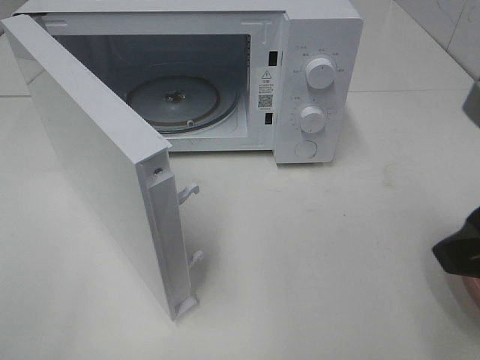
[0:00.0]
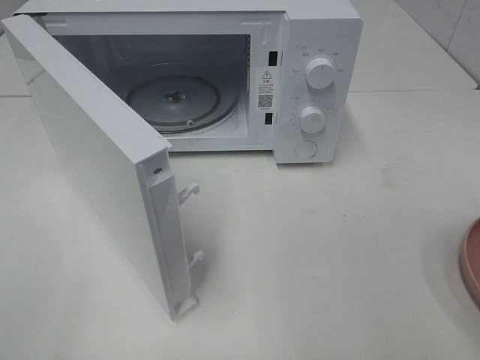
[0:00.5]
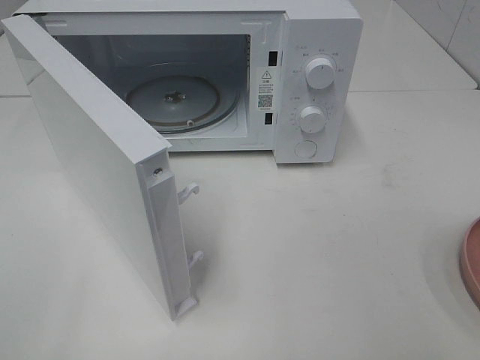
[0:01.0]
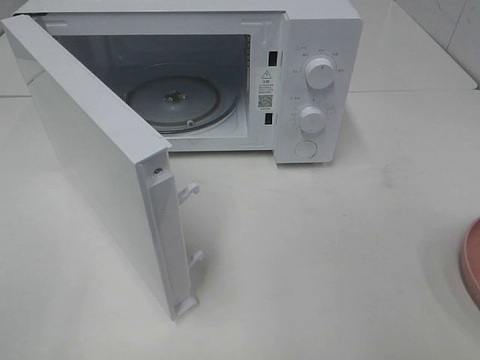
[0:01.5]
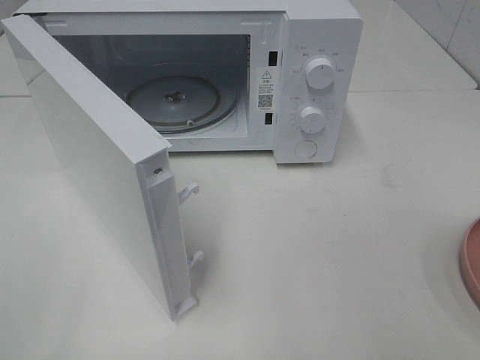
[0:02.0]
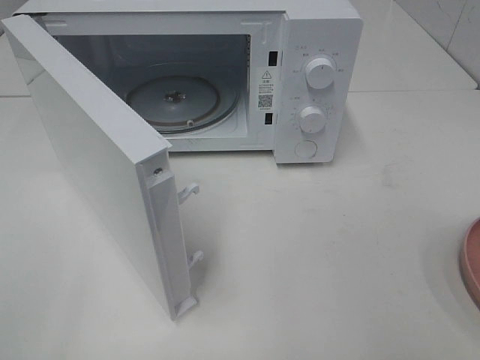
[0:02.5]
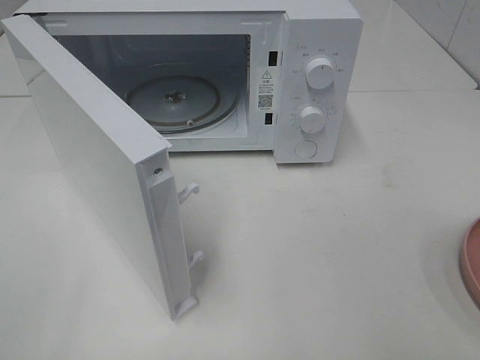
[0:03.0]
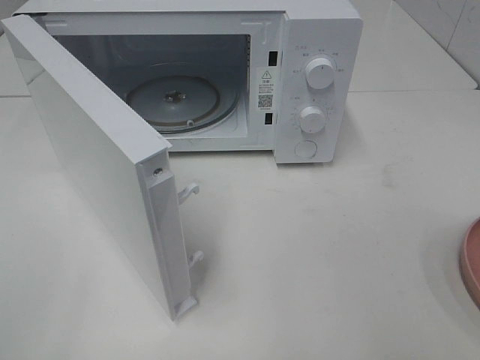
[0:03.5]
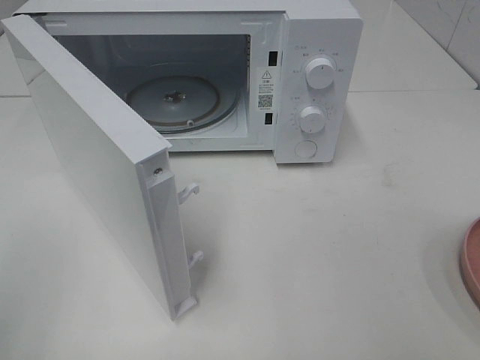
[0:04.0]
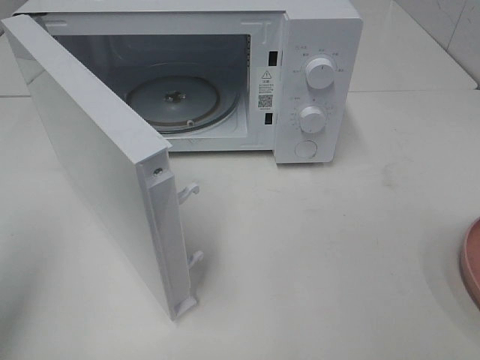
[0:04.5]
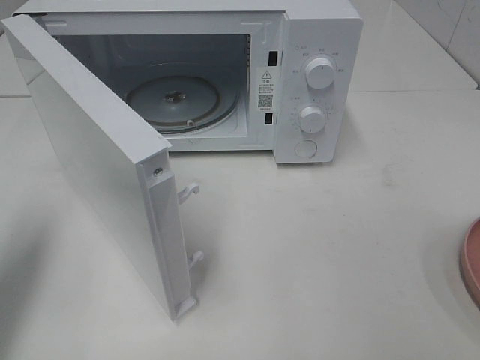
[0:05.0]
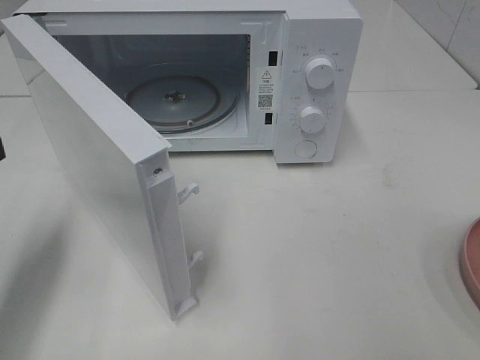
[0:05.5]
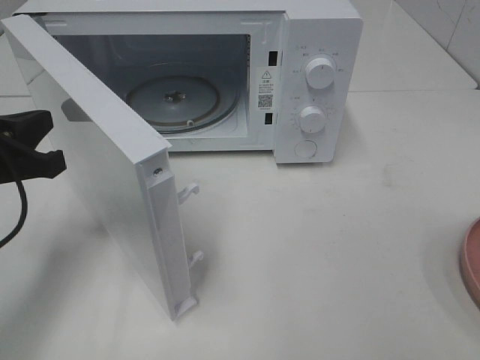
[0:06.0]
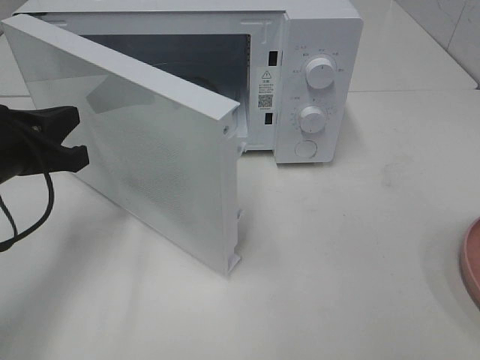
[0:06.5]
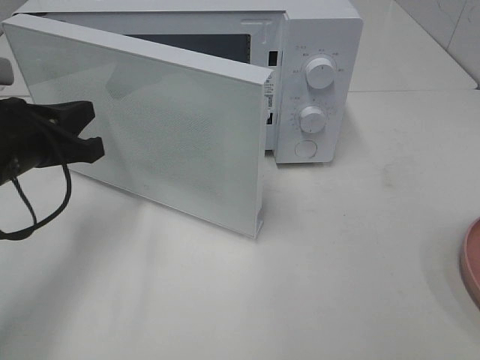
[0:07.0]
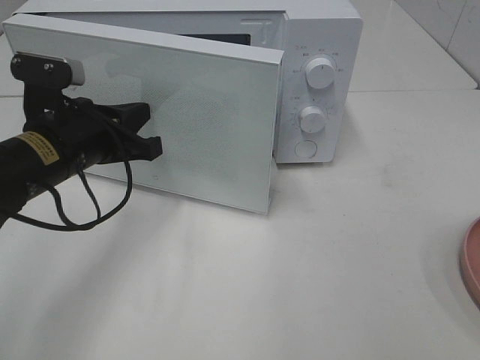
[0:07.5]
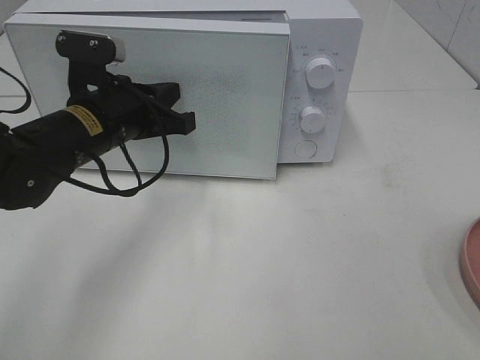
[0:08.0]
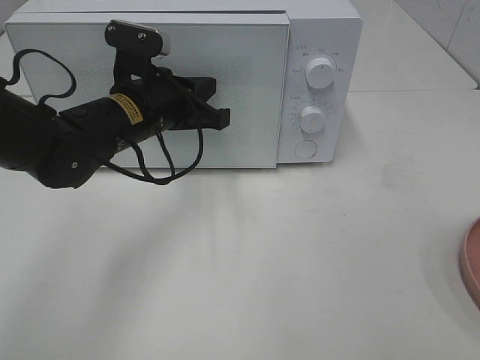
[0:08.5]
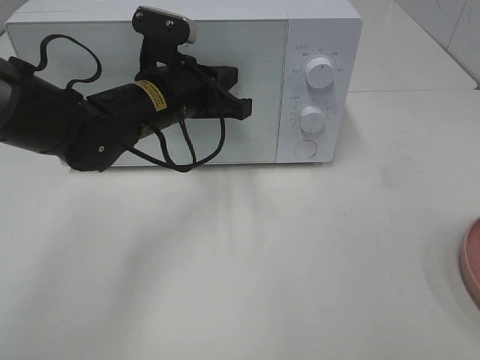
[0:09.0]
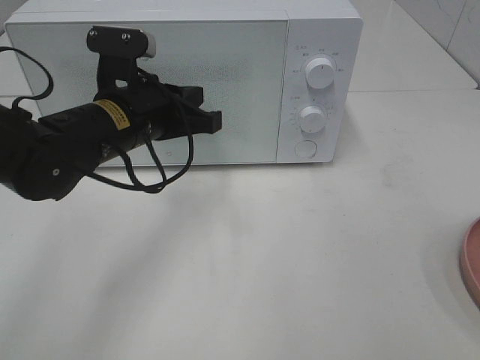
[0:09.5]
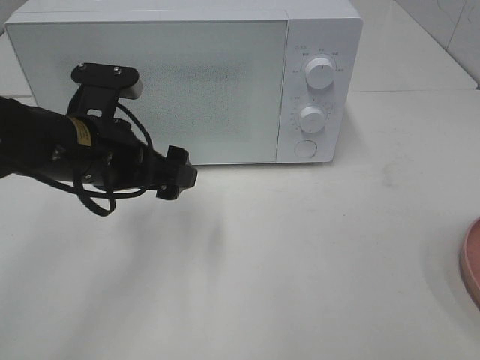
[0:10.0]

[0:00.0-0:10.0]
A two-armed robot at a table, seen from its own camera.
Task of the whole recording: Heat the burger.
Step, 0.0 to 9.0 s: Left hand: close the microwave door.
0.0 to 2.0 s: The right gripper moves backward and to the right, some 15 cm.
4.0 to 6.0 s: The left gripper shifts about 20 cm forward and downward, and closes its fingers.
6.0 to 8.0 s: The left gripper travels to the right and forward by roughly 15 cm.
8.0 to 10.0 s: The left gripper moves backward, approximately 5 cm, and opens up.

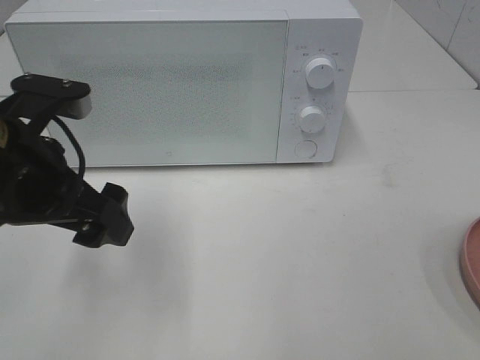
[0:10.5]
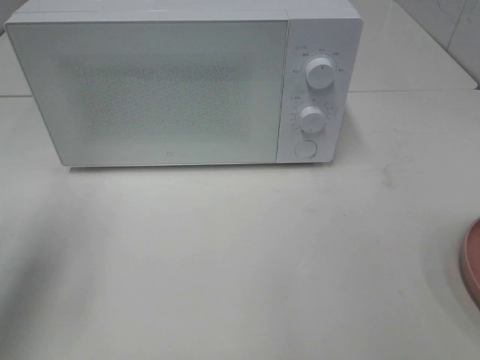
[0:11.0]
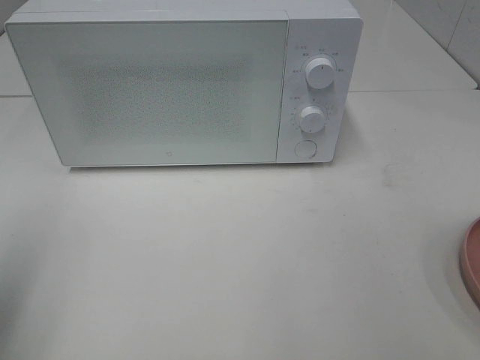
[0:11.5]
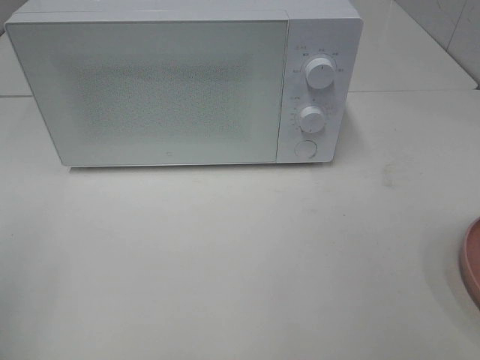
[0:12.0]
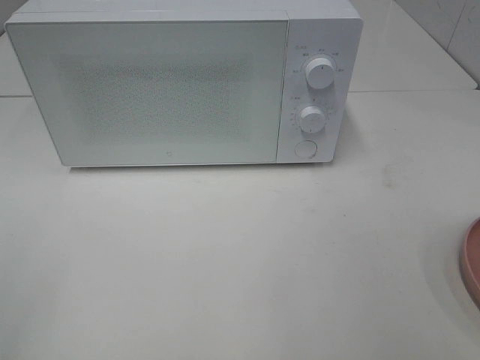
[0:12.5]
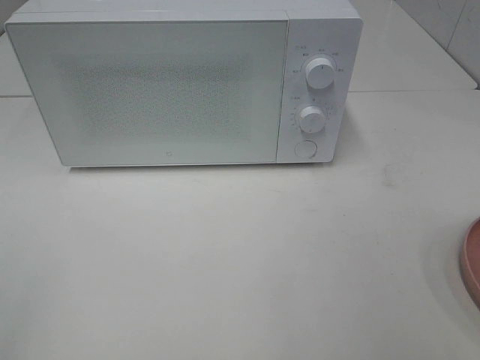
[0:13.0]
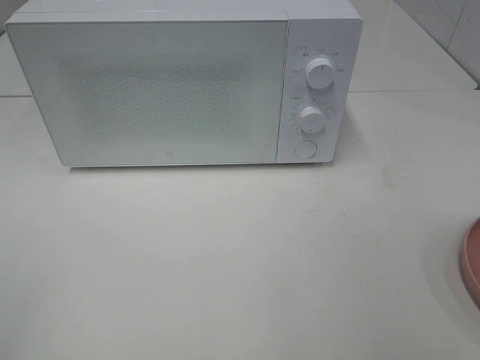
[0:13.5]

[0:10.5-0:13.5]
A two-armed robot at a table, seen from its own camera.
Task of the whole recording: Heat the burger.
10.5 to 12.0 s: The left gripper goes about 20 cm to the left and backward.

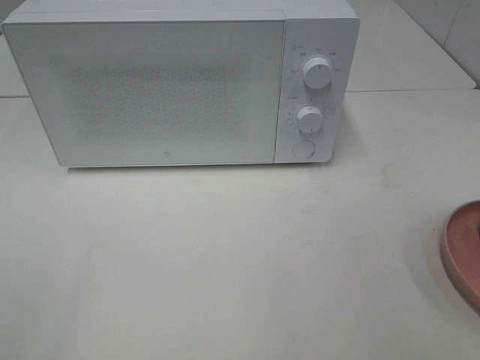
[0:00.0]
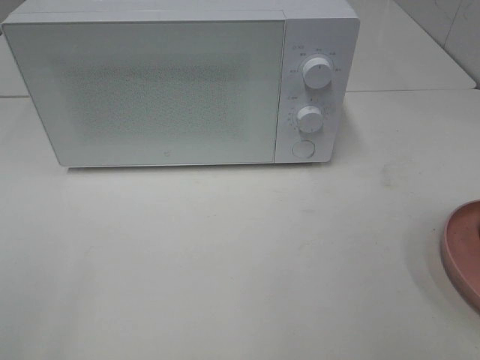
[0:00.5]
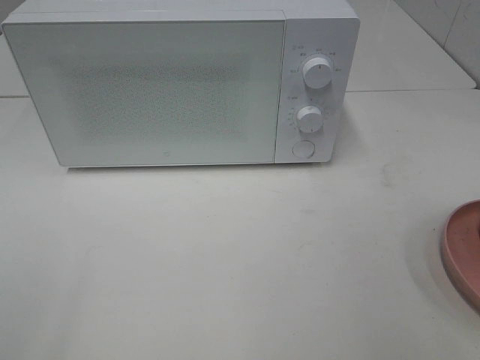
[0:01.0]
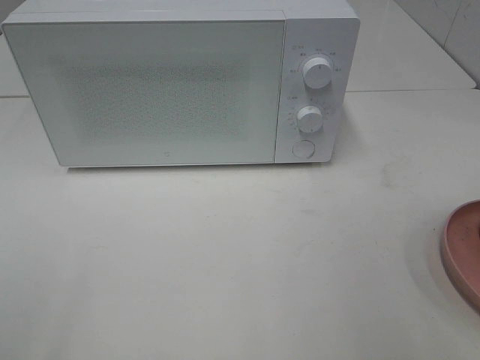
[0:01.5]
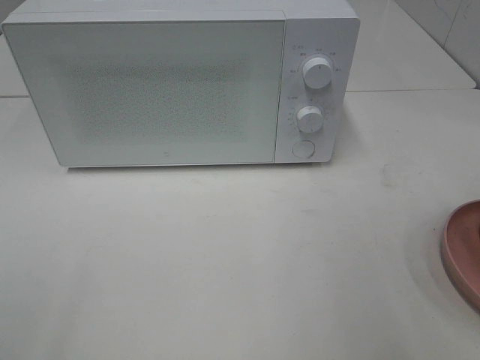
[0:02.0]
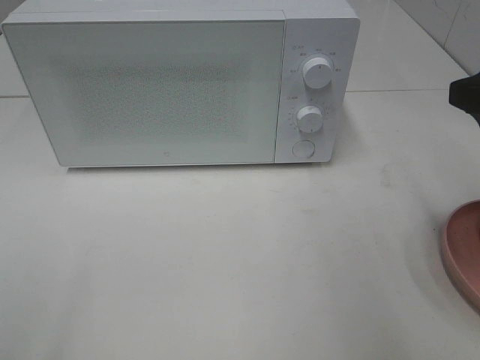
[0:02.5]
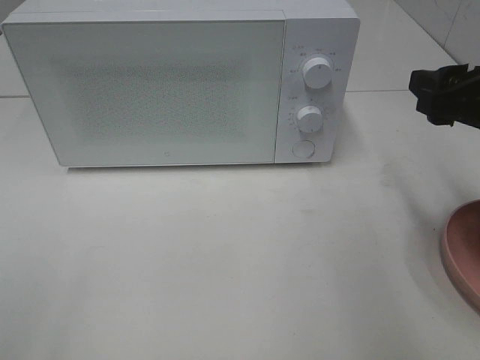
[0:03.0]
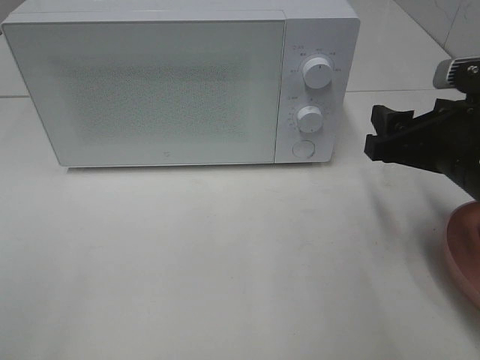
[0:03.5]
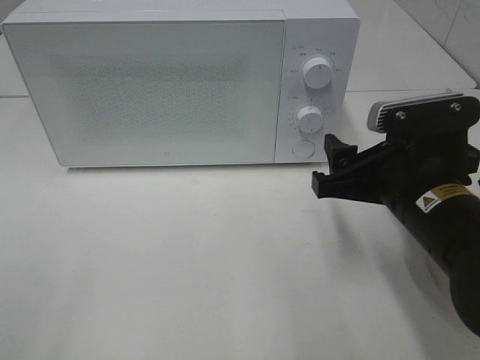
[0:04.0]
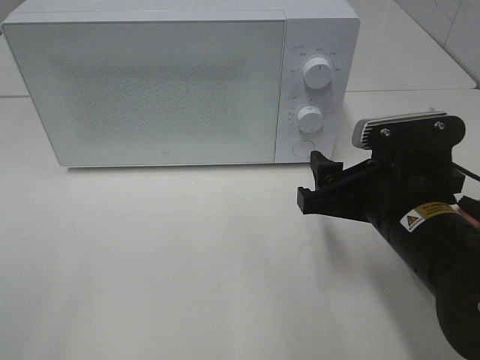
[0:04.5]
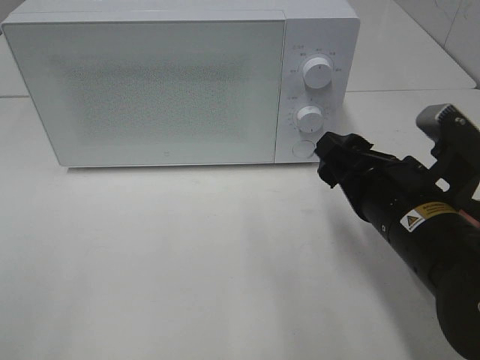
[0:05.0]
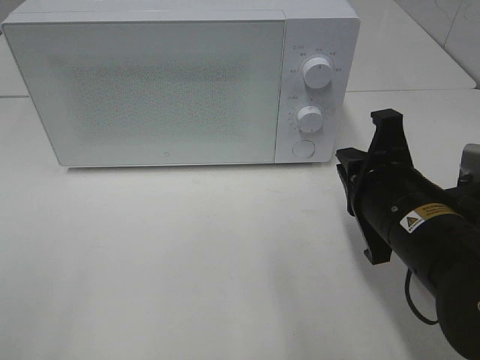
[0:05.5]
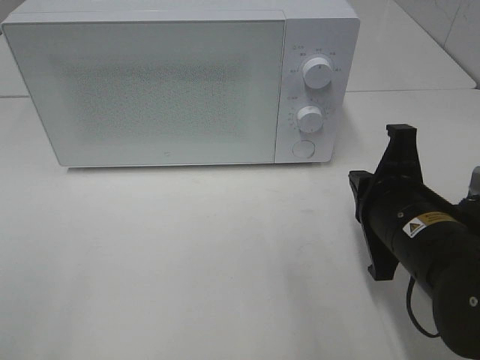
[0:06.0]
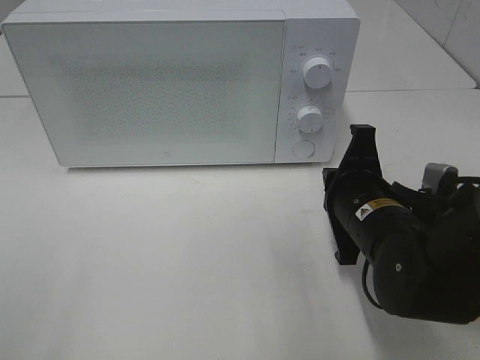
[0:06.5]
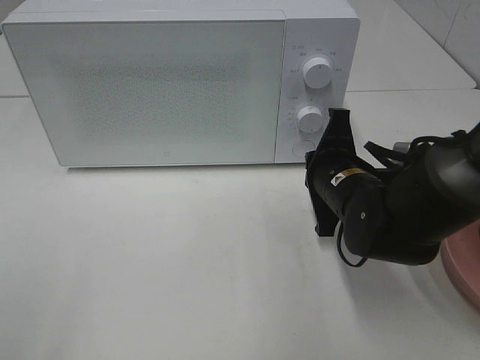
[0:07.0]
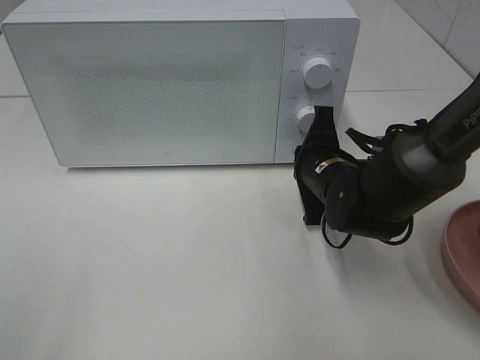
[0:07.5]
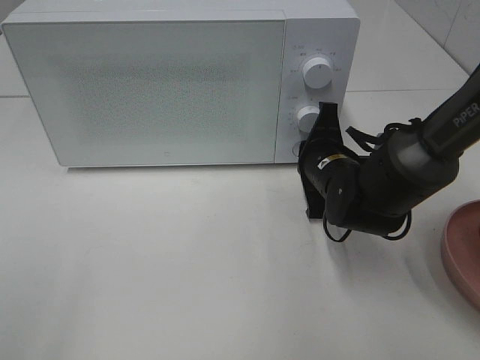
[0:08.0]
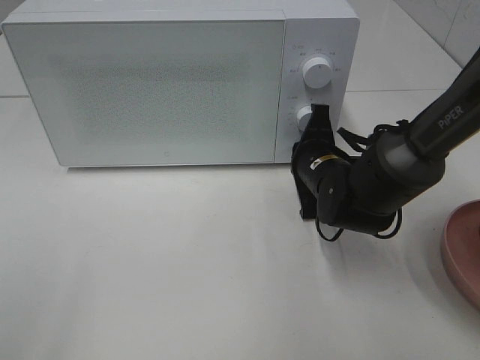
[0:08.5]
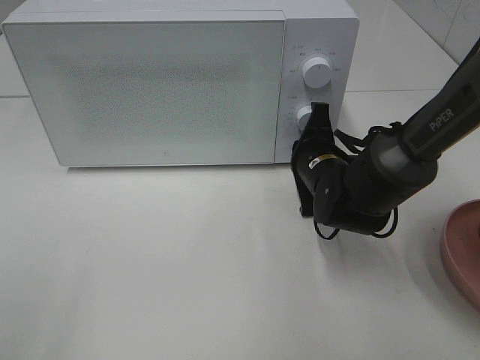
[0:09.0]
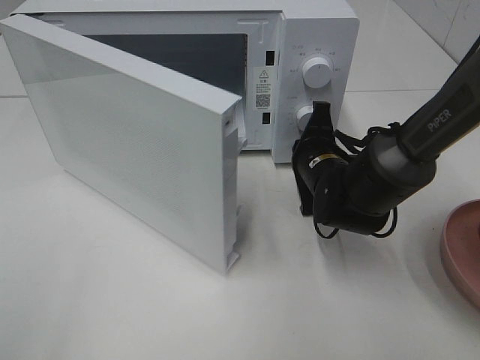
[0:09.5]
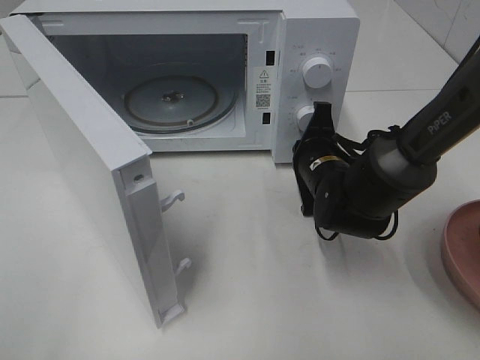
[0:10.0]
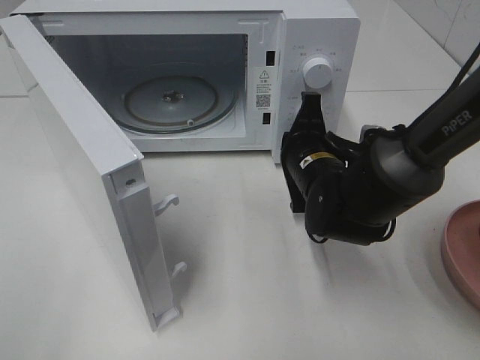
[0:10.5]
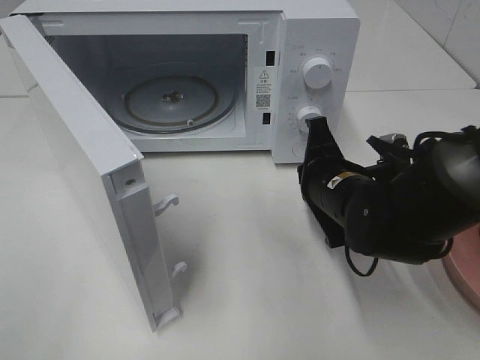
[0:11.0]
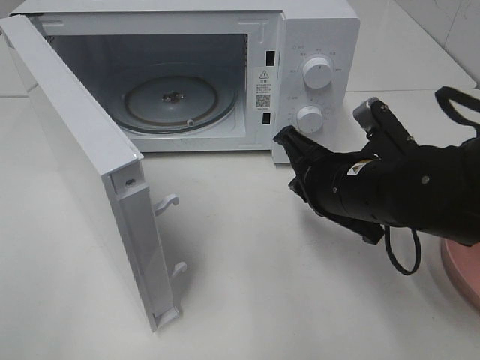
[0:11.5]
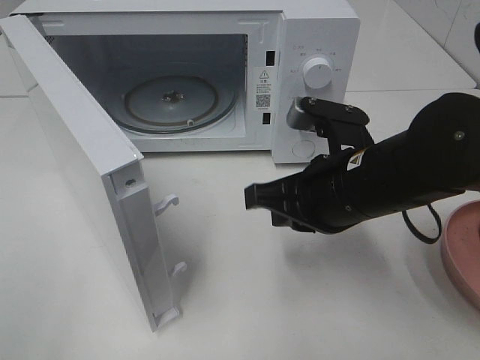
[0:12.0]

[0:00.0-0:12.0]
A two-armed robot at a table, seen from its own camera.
Task of the whole recording: Heat the burger.
Step, 0.0 to 10.0 s: Right hand: press the switch.
2.0 to 4.0 s: The right gripper is displaced downward, to the left and forward by approximately 20 cm.
4.0 to 6.0 s: The right gripper closes its fingers.
6.0 to 8.0 s: The right gripper travels forward by roughly 15 cm.
10.0 to 12.0 s: The right gripper travels backward and upward by approximately 15 cm.

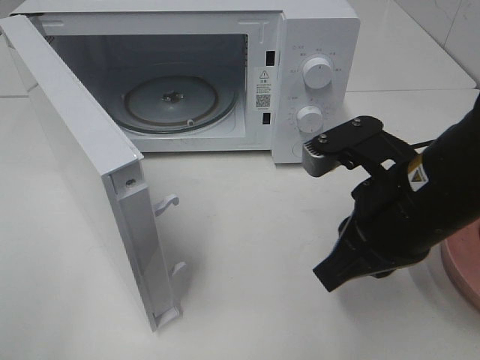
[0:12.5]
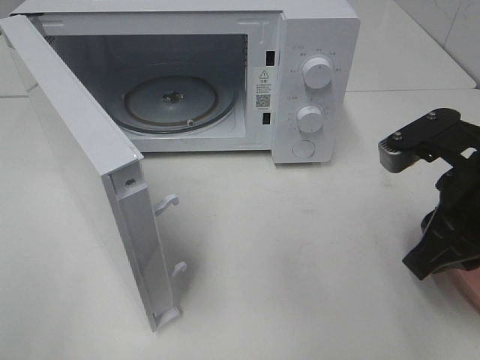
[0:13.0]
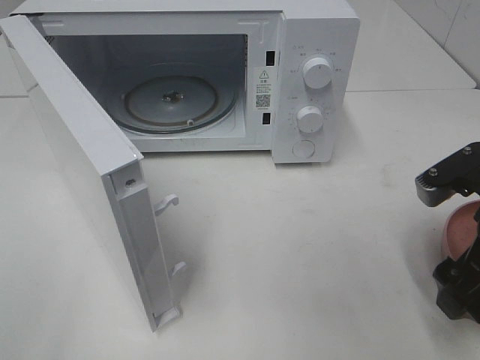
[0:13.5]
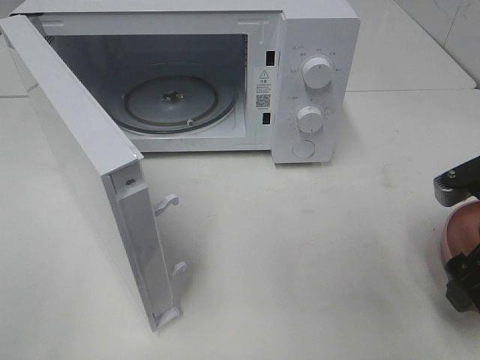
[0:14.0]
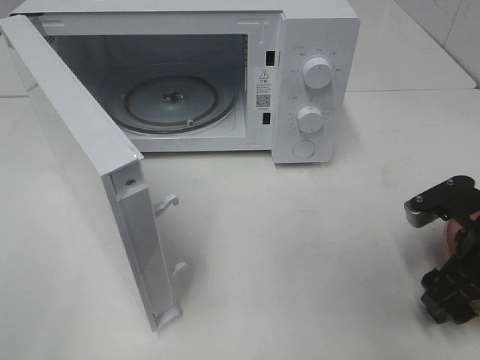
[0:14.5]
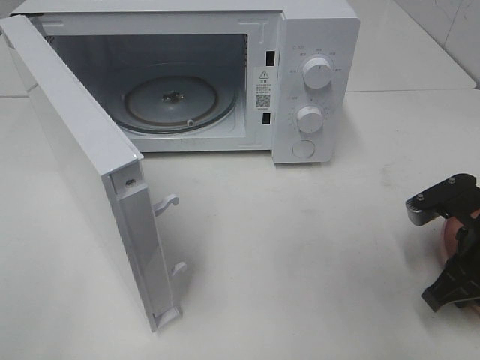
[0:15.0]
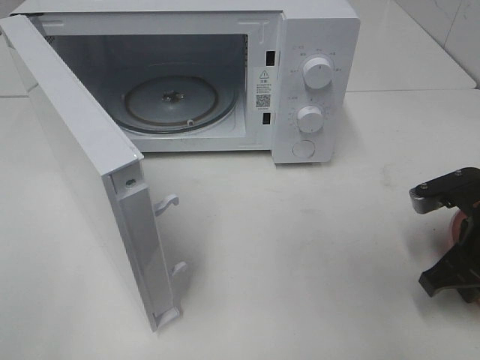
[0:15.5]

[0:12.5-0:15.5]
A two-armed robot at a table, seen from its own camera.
Task of the whole recording: Heat the burger.
12.5 to 14.0 s: The right gripper heads to the right, covering approximately 10 cm, and opens its fingers.
14.0 to 15.5 s: The right gripper ends up some 5 cm from where it was, and closes.
